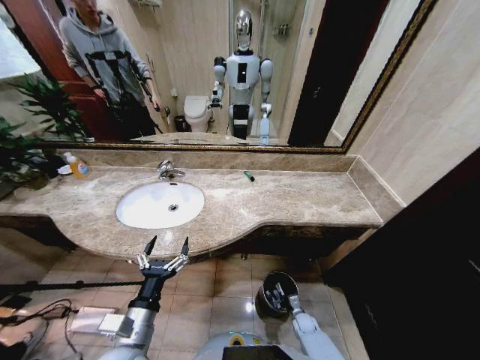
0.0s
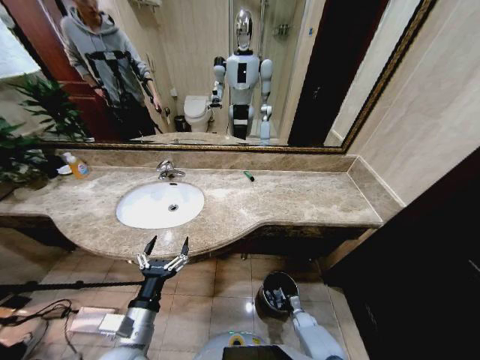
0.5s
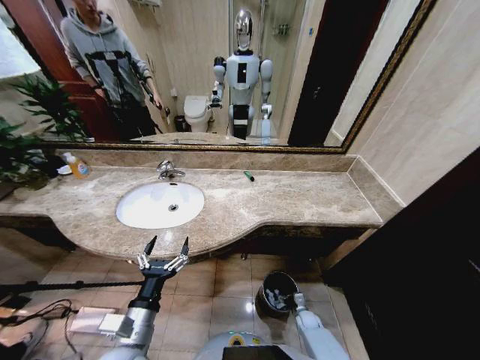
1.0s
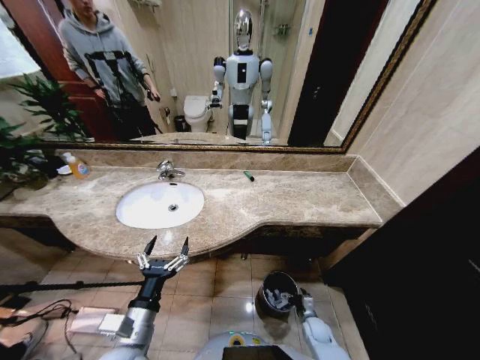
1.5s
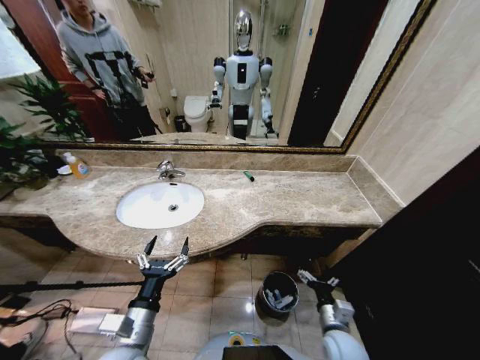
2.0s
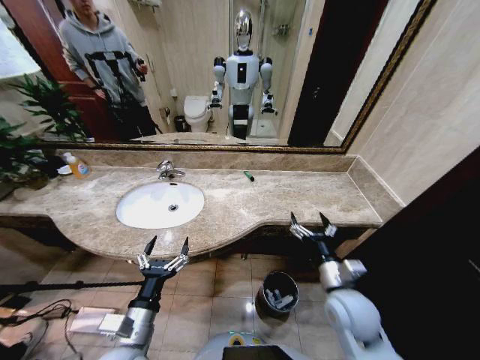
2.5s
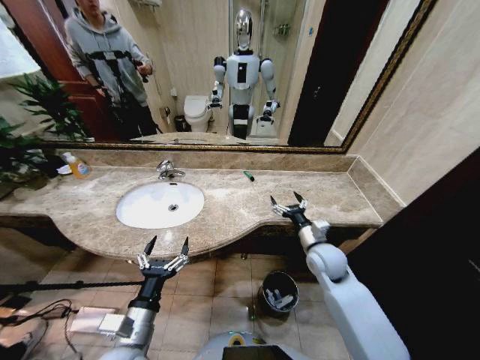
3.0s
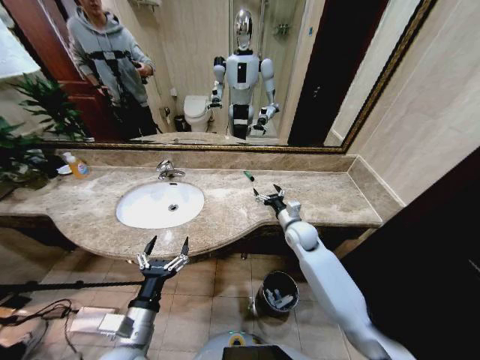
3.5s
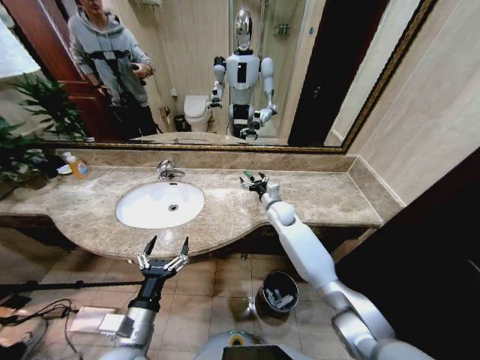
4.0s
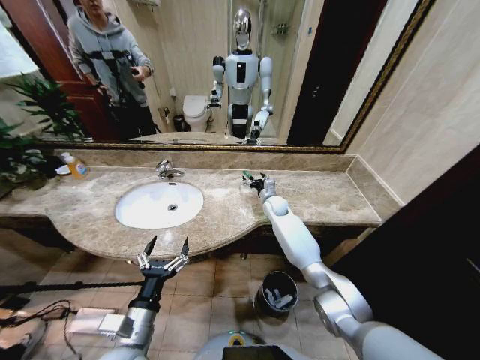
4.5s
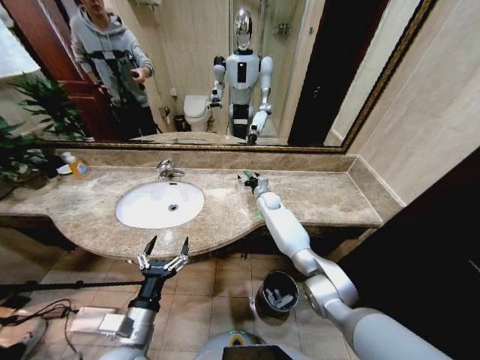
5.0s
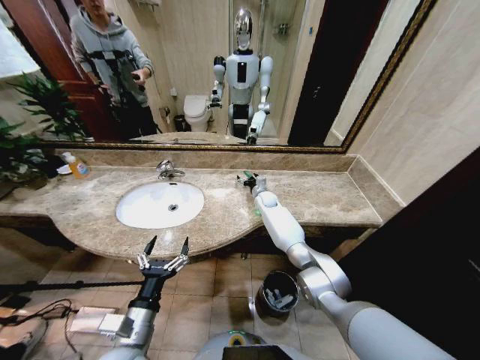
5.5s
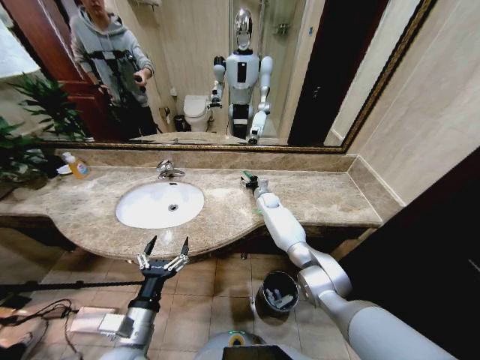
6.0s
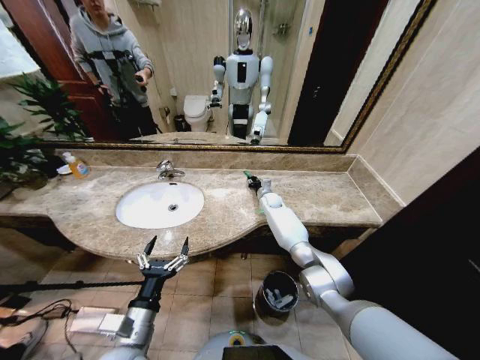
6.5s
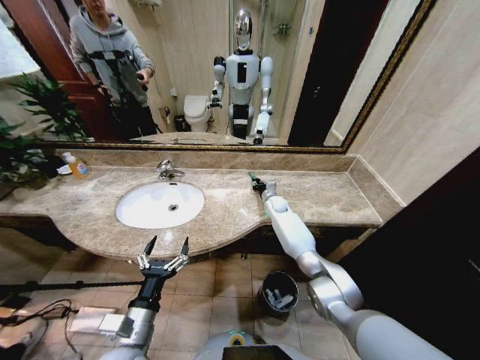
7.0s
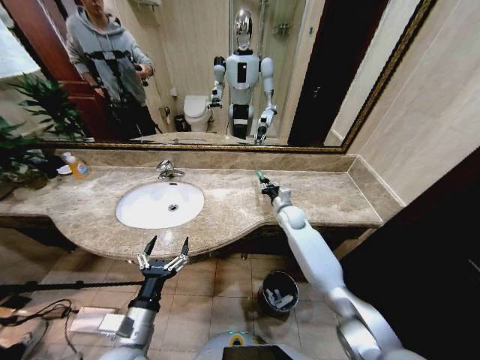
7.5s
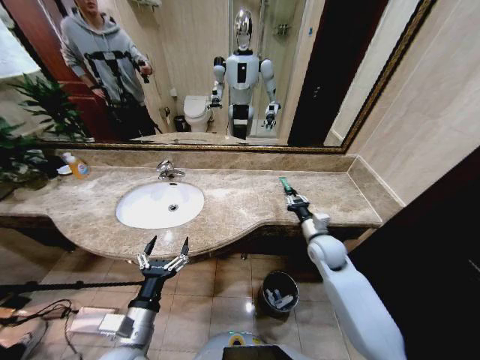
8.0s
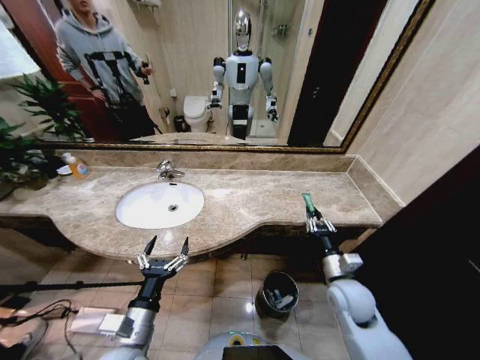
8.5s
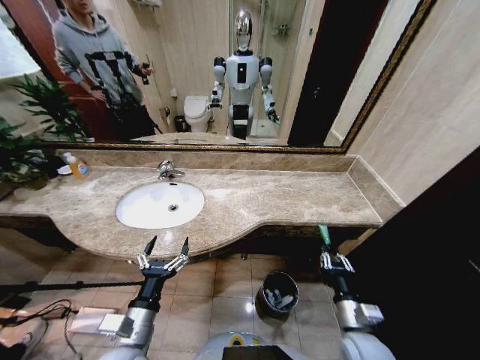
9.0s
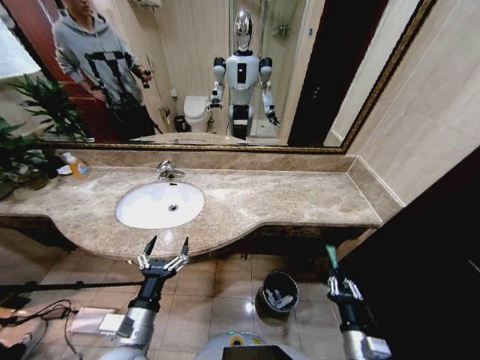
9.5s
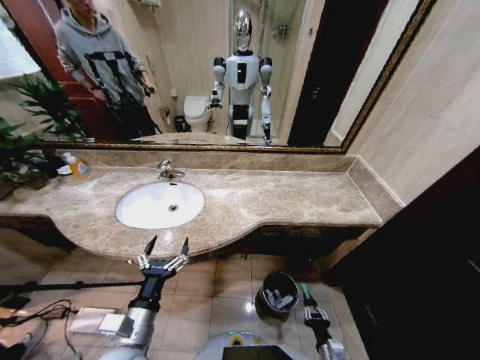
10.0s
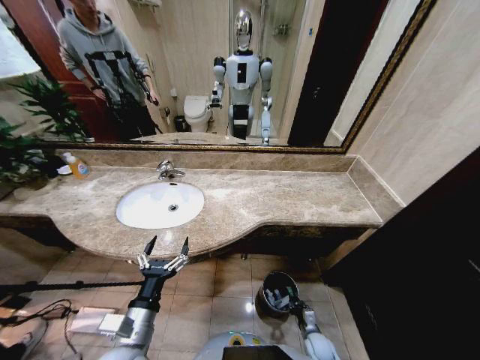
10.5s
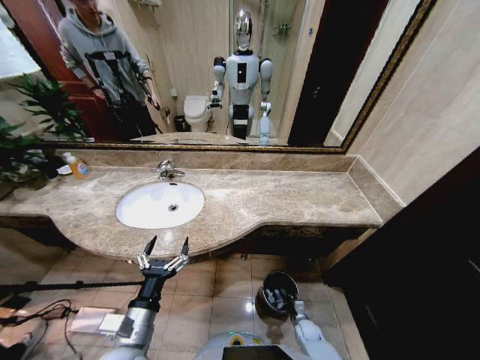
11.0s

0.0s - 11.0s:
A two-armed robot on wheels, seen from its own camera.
Task of the whole recording: Pick up the trash from the sink and place it in the trash bin.
0.0s - 2.0s: The right gripper goes roughly 25 cm upward, and opens its fingers.
2.0s - 3.5s: The right gripper shifts roughly 30 cm forward and upward.
3.5s - 5.5s: The right gripper moves forward, approximately 20 cm.
5.5s - 7.5s: The right gripper heads backward and to the right, covering about 15 cm, and closes up.
7.5s - 9.0s: The right gripper travels backward by about 35 cm.
9.0s - 11.0s: The right gripper shifts approximately 30 cm downward.

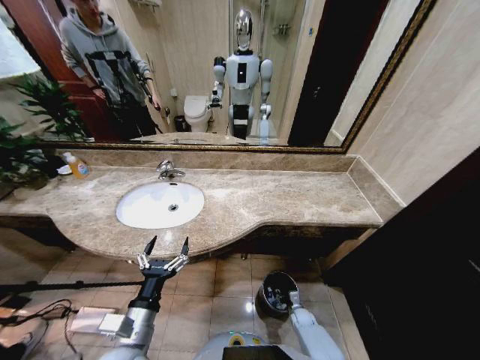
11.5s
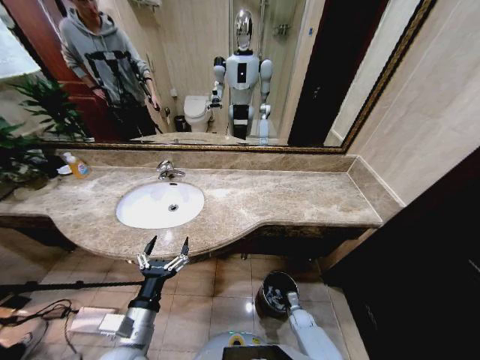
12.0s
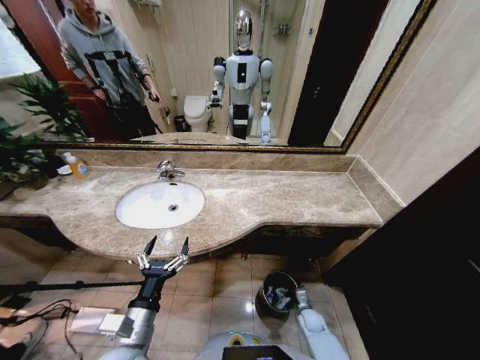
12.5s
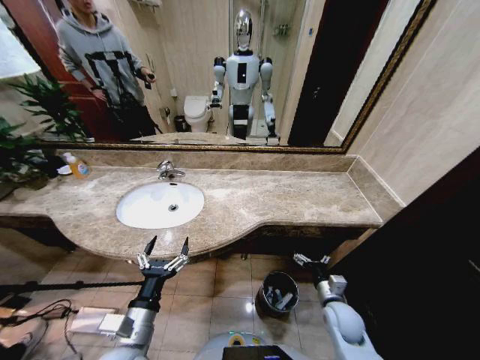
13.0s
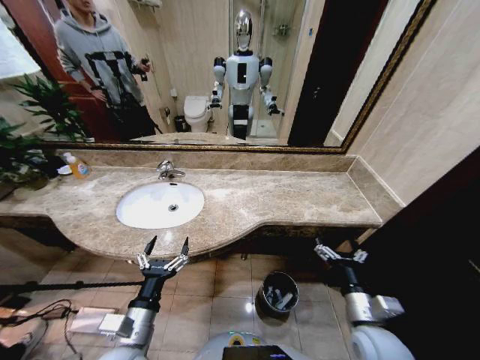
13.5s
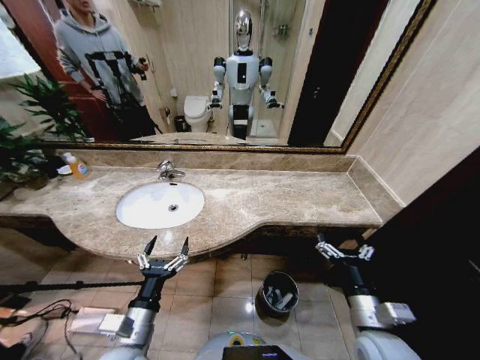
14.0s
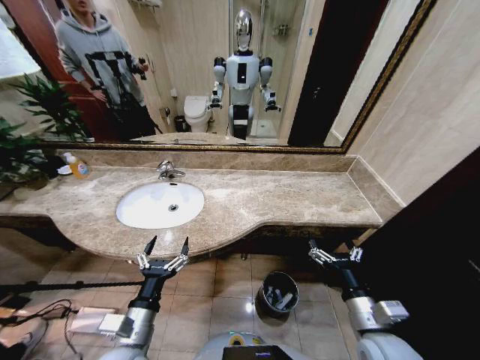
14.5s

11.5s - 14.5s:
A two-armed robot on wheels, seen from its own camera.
Task of the whole recording: Pick up the trash from the sink and place it in the trash bin.
11.5s - 13.0s: The right gripper moves upward, approximately 25 cm, and opens.
13.0s - 14.5s: The right gripper travels upward and backward by about 15 cm.

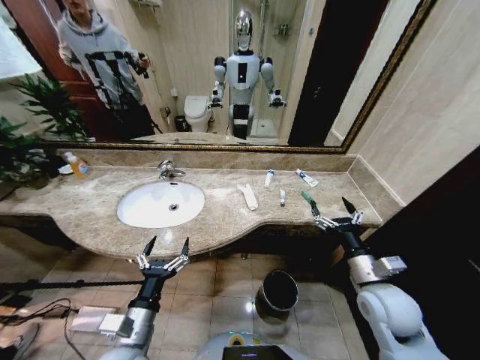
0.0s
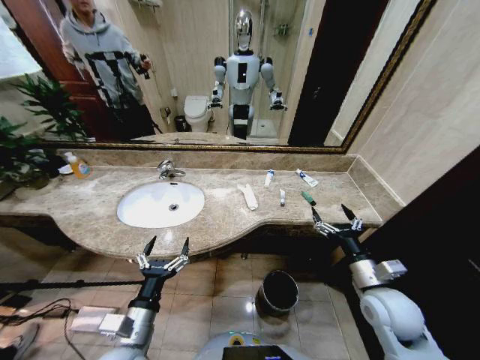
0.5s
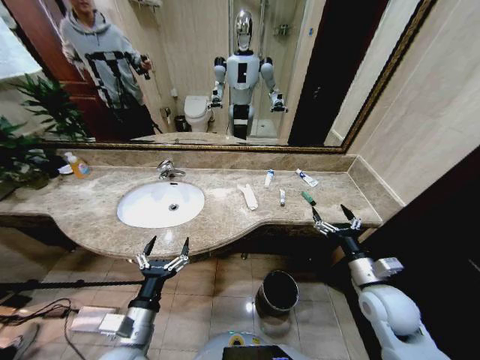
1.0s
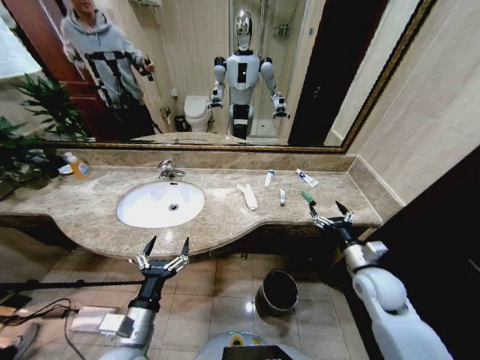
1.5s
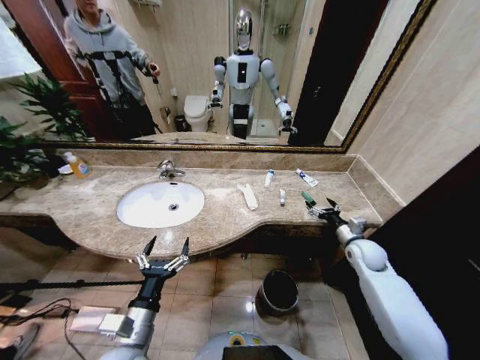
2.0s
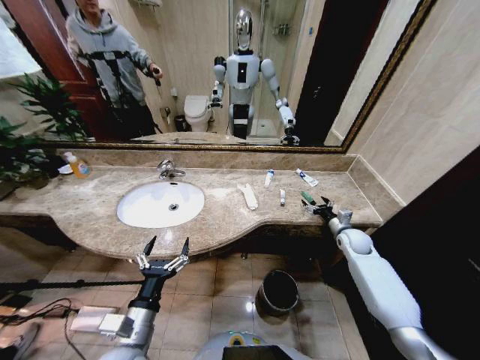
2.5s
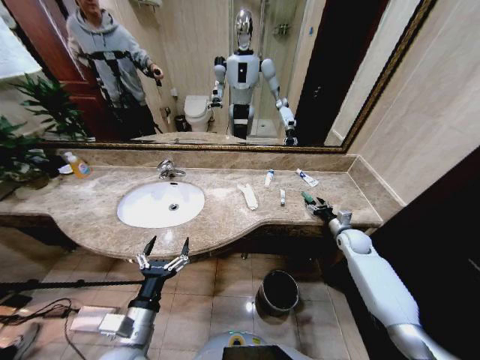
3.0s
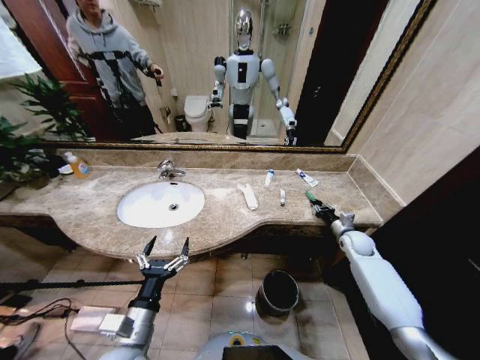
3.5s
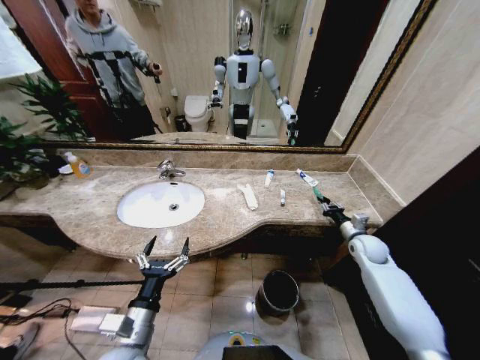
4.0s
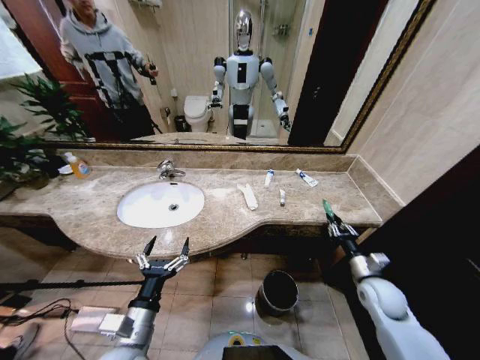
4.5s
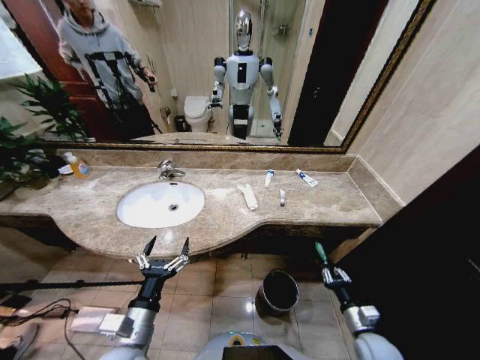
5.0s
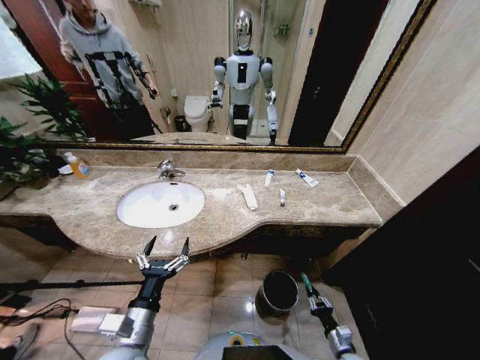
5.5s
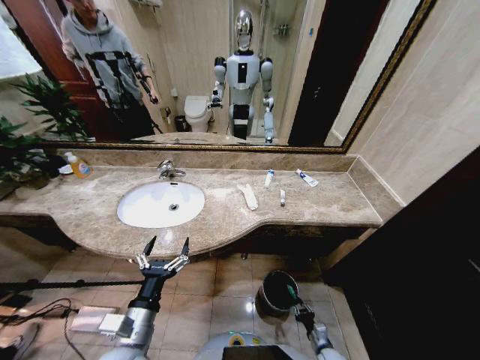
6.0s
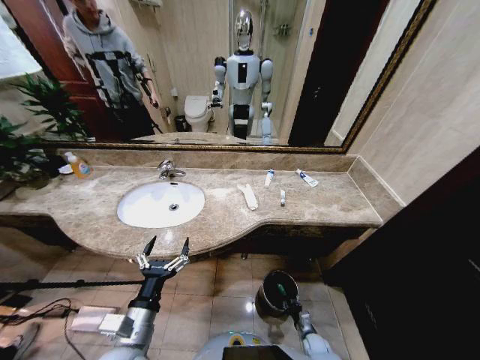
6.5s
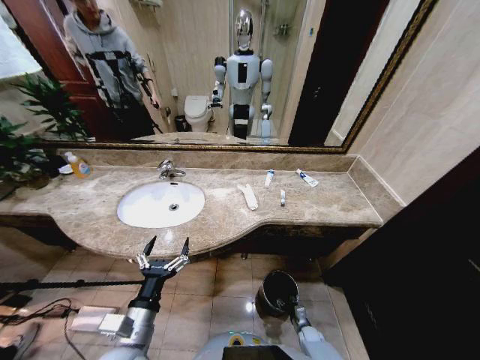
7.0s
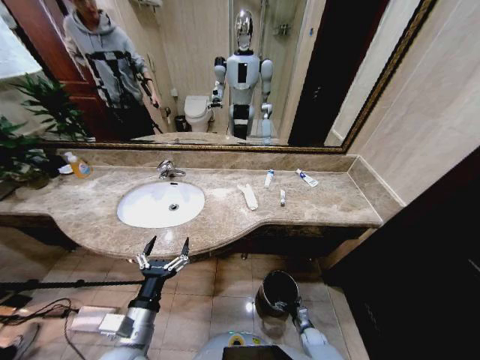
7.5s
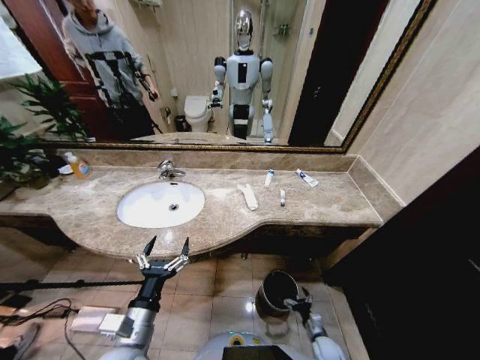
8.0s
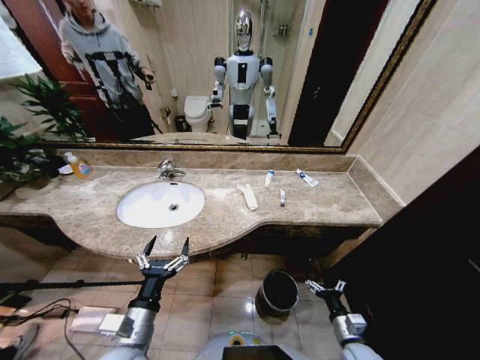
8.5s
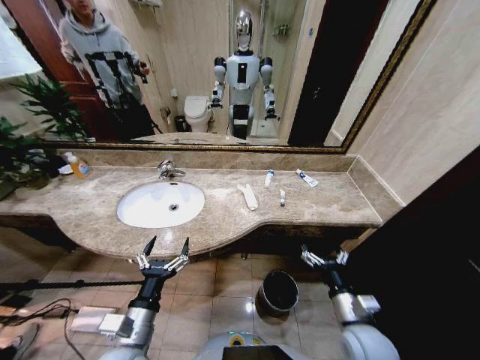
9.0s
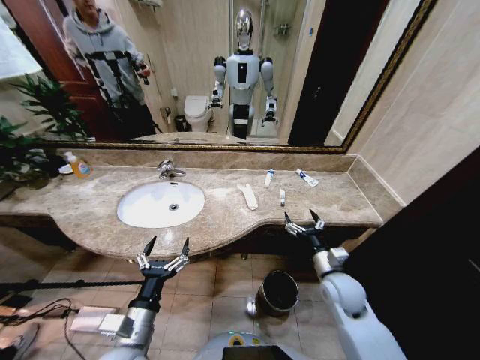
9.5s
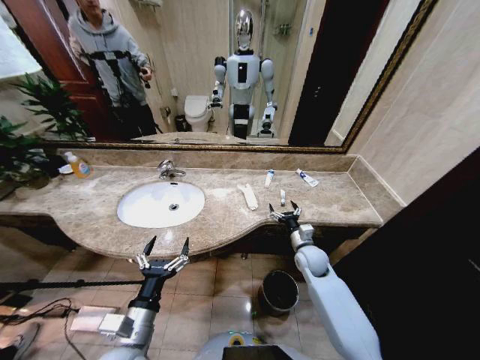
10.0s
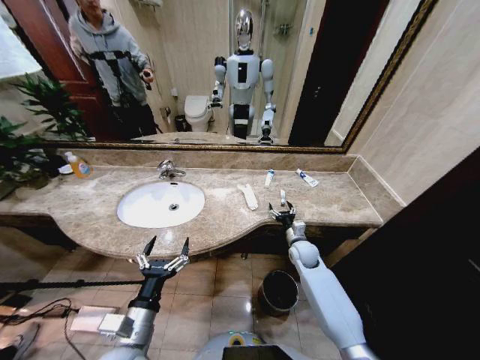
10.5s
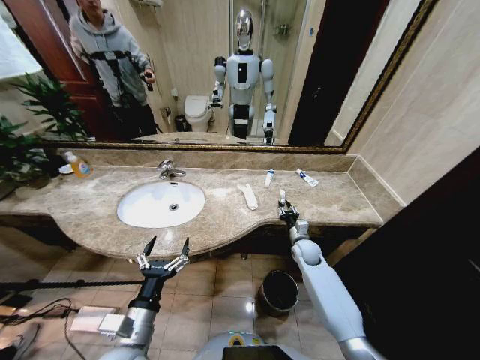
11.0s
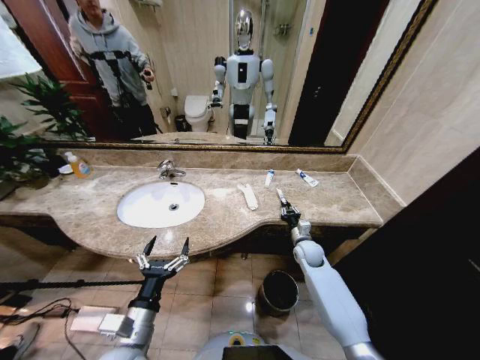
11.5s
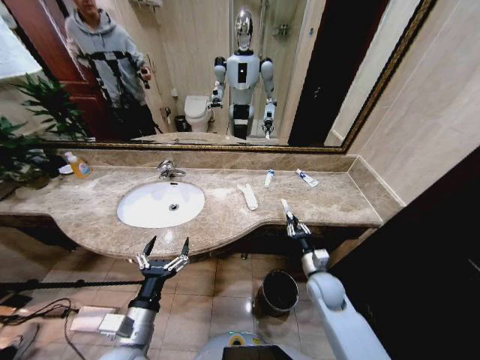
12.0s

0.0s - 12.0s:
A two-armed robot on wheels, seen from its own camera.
Task of the whole recording: Pick up the trash from the sink and place it in the trash bin.
2.0s - 4.0s: The right gripper closes.
4.0s - 6.0s: The right gripper moves downward and backward, roughly 40 cm.
6.0s - 8.0s: The right gripper opens up.
8.0s - 10.0s: The right gripper travels upward and forward by about 35 cm.
10.0s - 12.0s: The right gripper goes approximately 10 cm backward, and closes its fingers.
